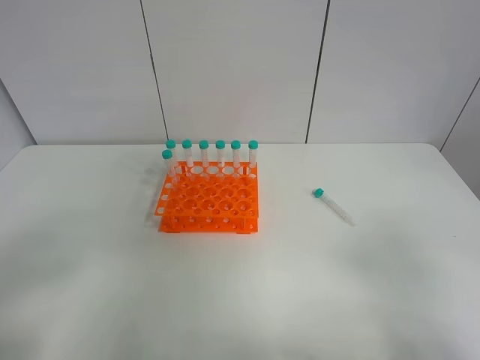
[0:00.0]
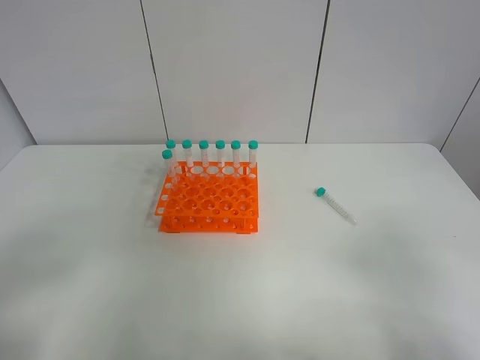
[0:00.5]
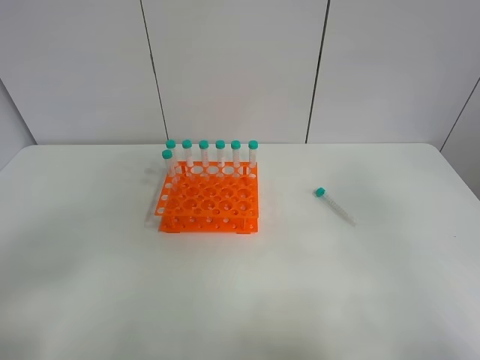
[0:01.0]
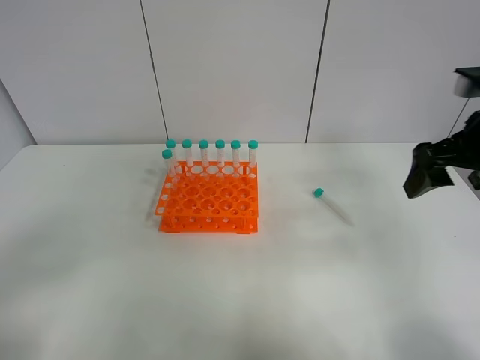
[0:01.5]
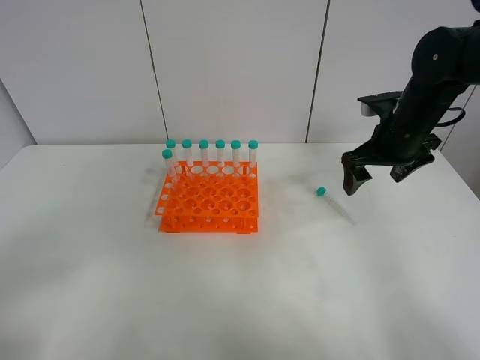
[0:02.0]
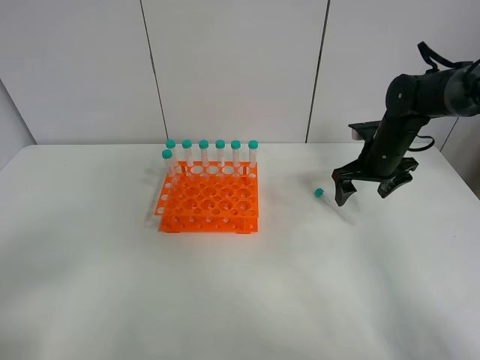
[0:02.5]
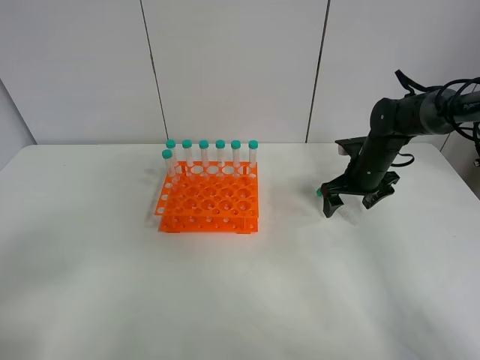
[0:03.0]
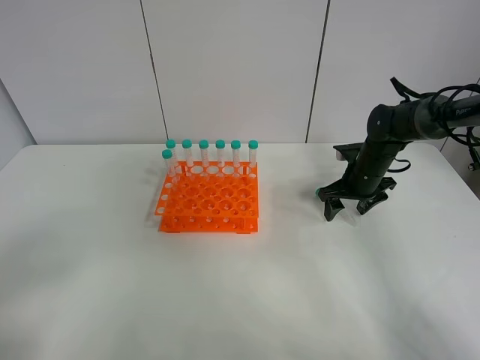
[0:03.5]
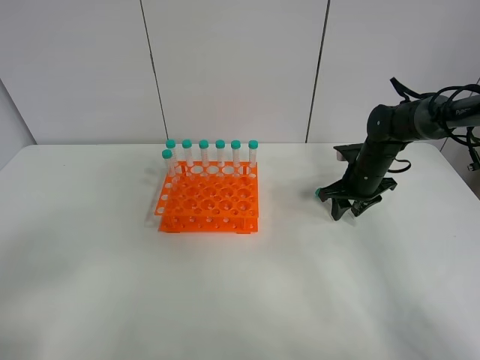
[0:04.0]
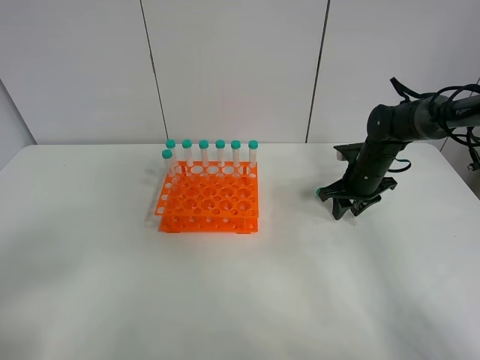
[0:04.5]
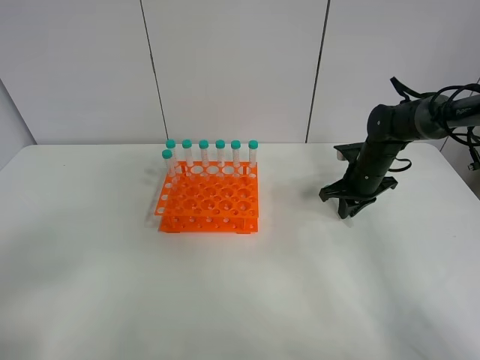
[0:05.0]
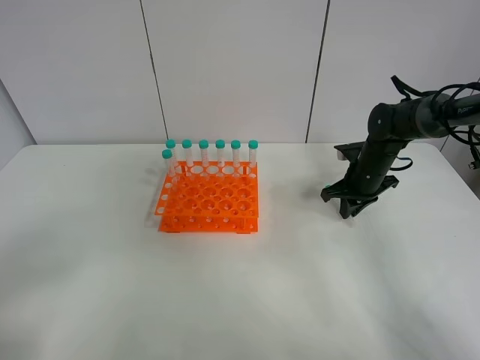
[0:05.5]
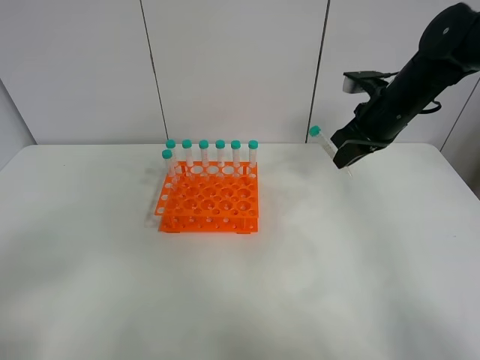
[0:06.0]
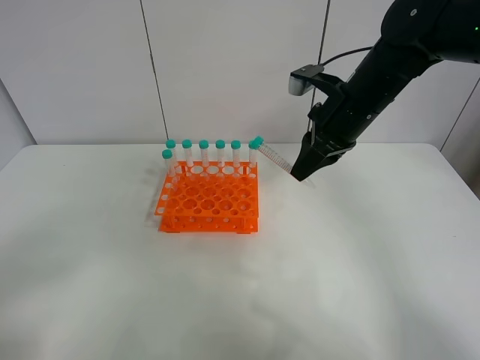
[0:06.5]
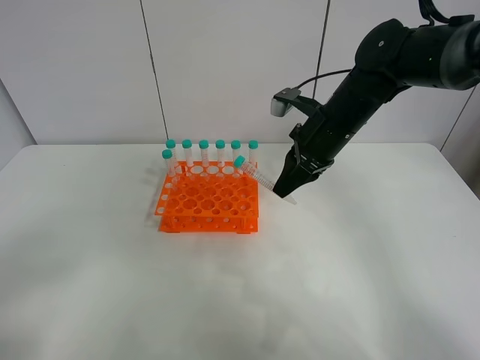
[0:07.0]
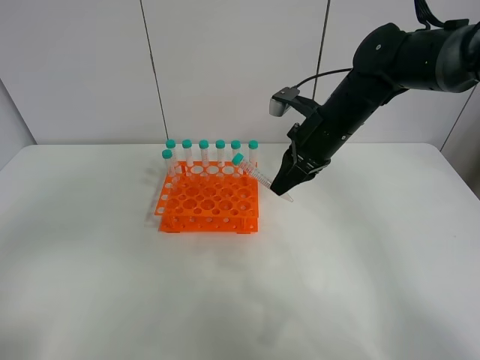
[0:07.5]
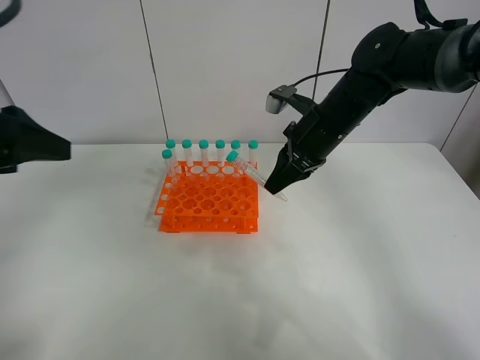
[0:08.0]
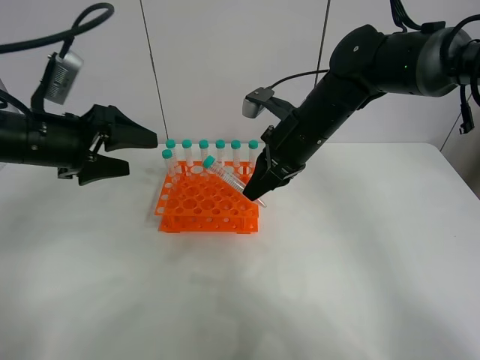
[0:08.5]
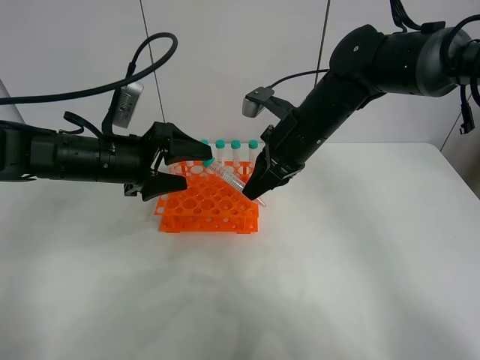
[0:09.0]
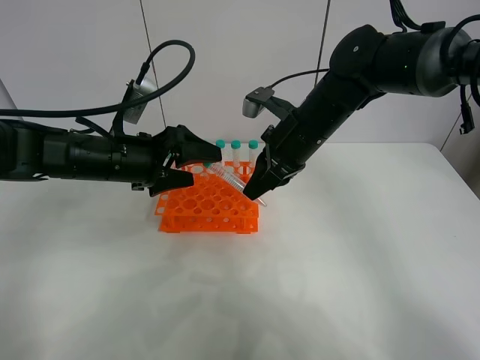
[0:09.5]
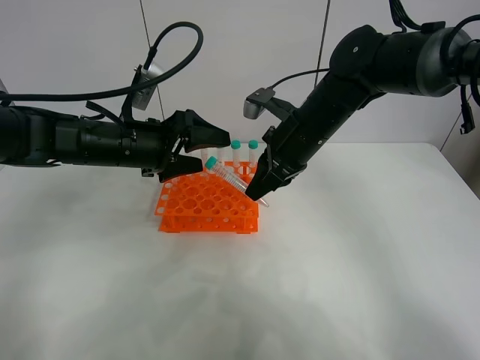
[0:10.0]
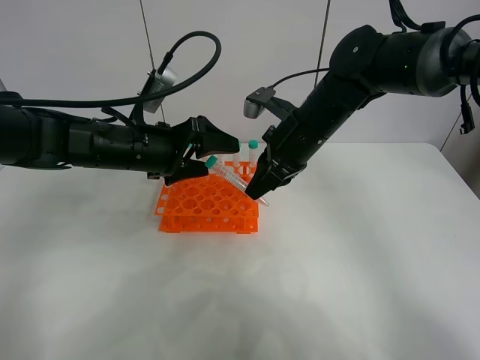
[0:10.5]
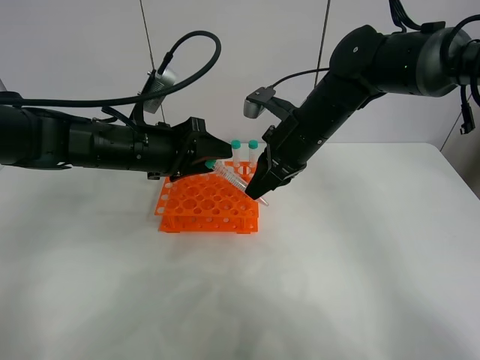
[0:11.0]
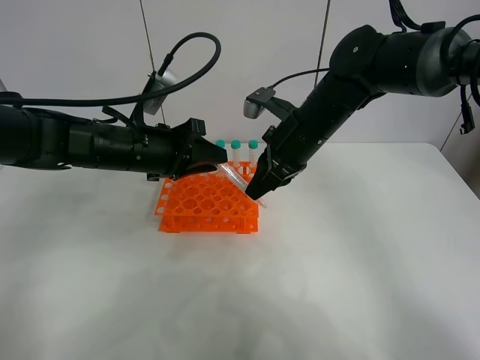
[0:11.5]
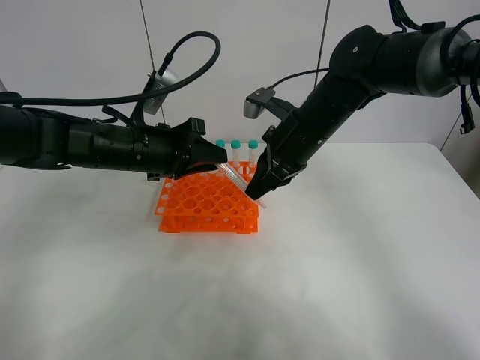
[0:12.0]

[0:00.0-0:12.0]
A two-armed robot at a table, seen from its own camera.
Task of the whole recording: Put the test tube on the table back onto the test tube rack.
Step, 0:00.0 to 0:06.0: Pick up the test tube with the right gripper.
0:00.0 to 0:02.0: The right gripper goes approximately 35 cm forward.
0:02.0 to 0:04.0: The right gripper goes roughly 15 cm downward and forward, and closes.
0:04.0 to 0:06.0: The right gripper moves upward, approximately 15 cm, and closes its fingers.
0:06.0 to 0:08.0: The right gripper shifts roughly 10 cm to the left, while the left gripper heads forward, covering approximately 20 cm.
0:08.0 to 0:10.0: The left gripper heads forward, to the right and downward, covering roughly 20 cm.
0:10.0 to 0:12.0: The left gripper closes.

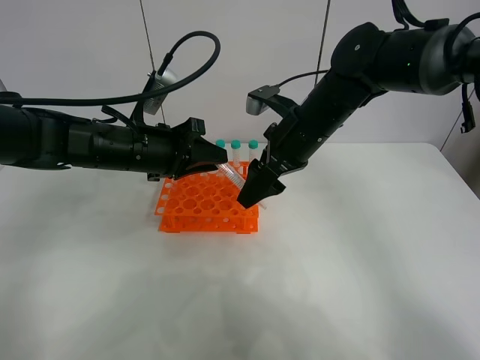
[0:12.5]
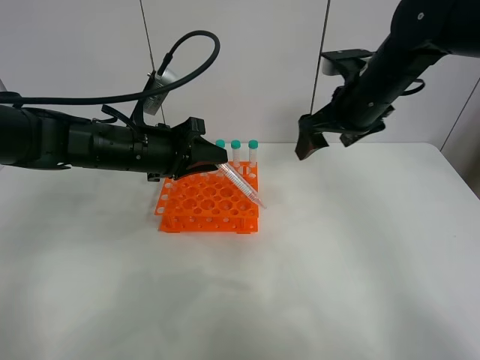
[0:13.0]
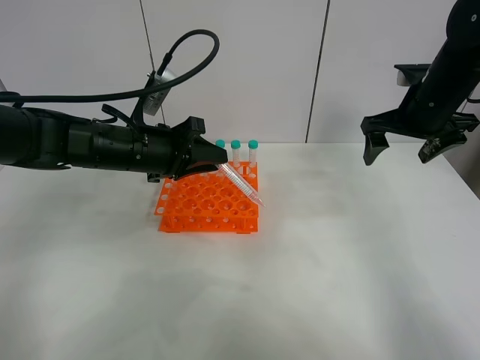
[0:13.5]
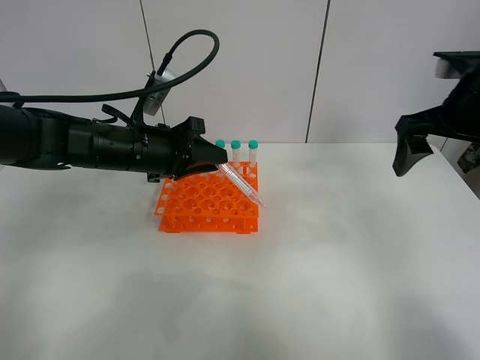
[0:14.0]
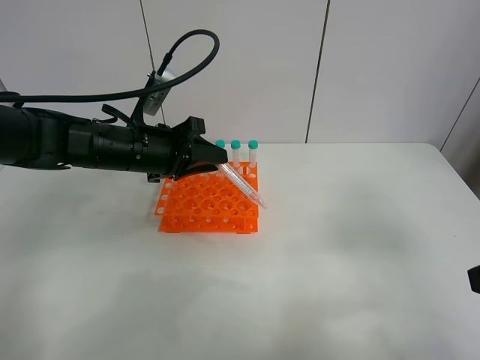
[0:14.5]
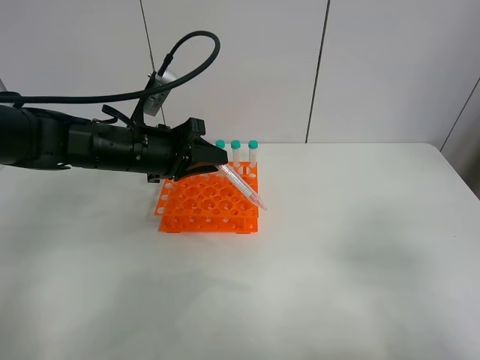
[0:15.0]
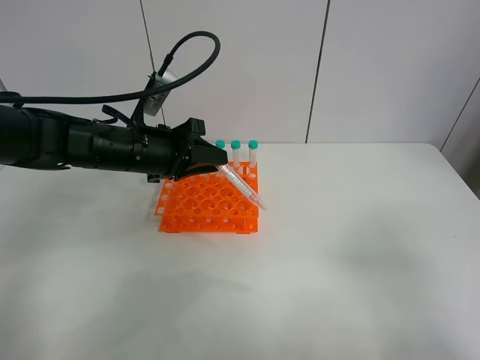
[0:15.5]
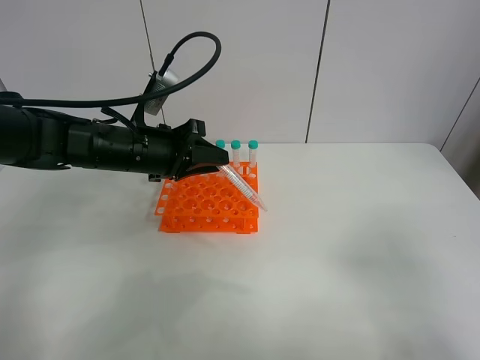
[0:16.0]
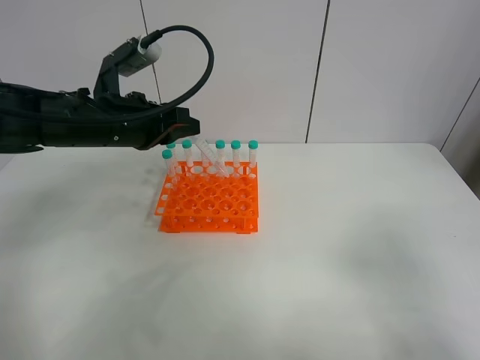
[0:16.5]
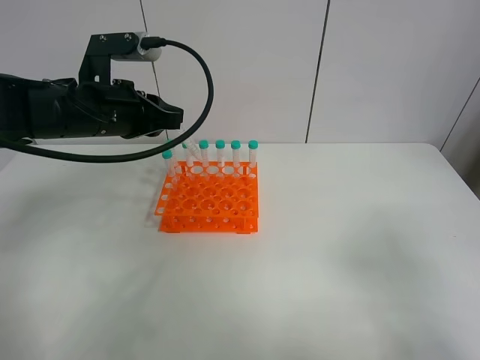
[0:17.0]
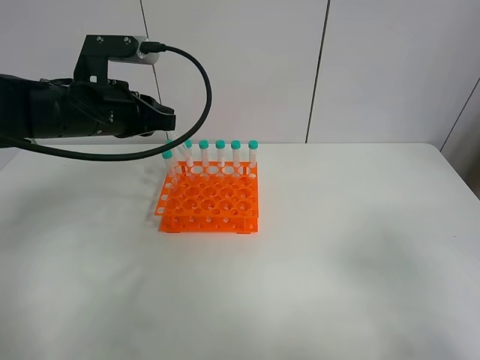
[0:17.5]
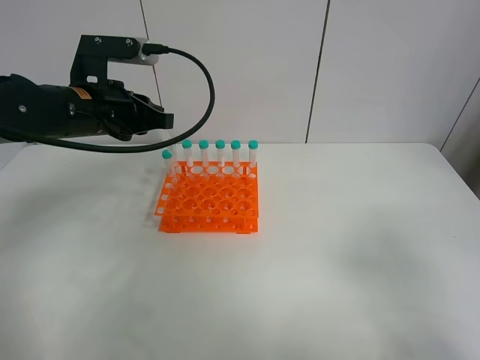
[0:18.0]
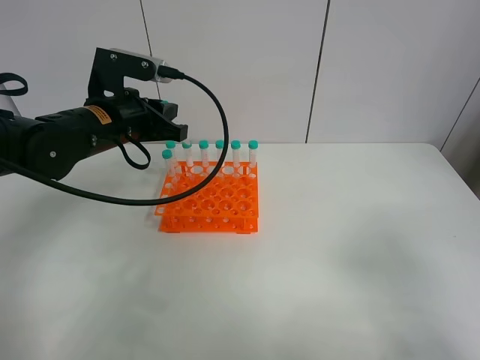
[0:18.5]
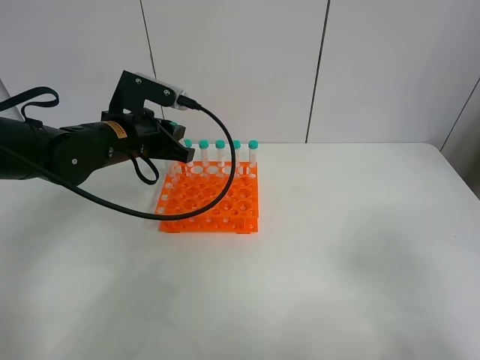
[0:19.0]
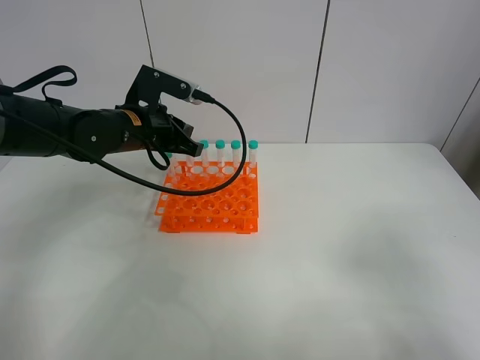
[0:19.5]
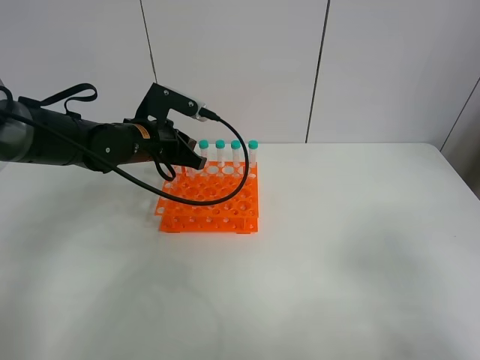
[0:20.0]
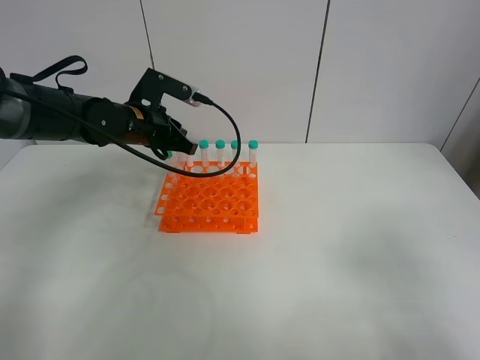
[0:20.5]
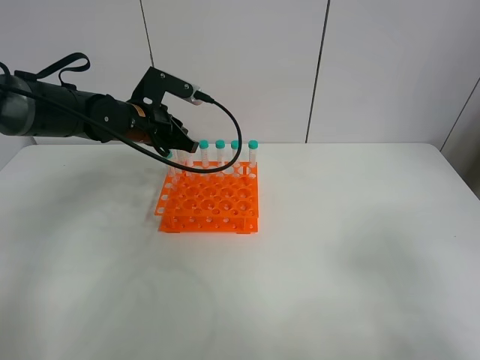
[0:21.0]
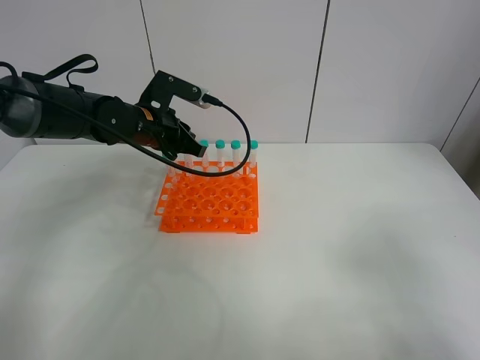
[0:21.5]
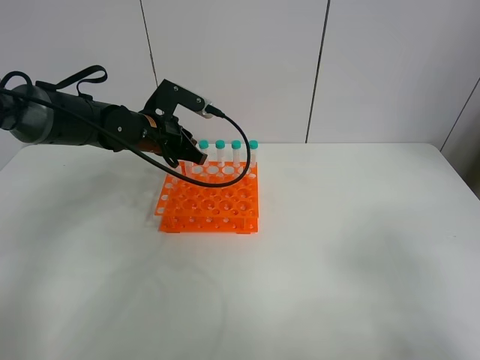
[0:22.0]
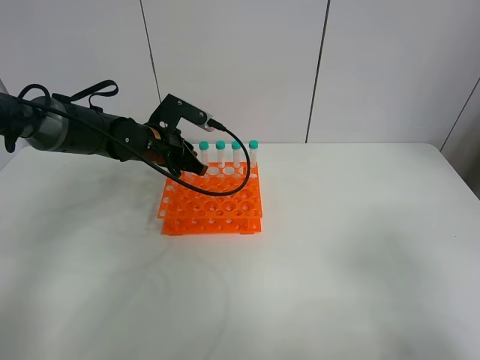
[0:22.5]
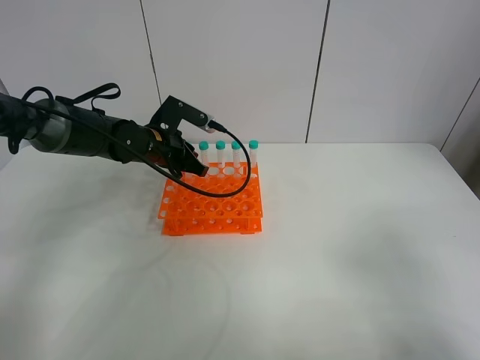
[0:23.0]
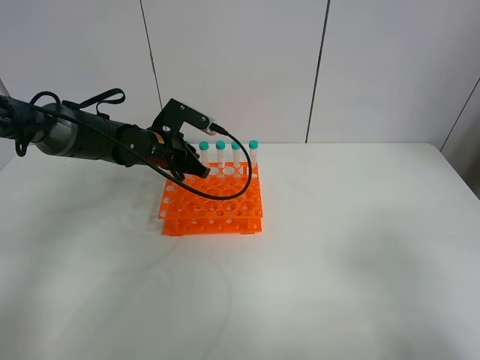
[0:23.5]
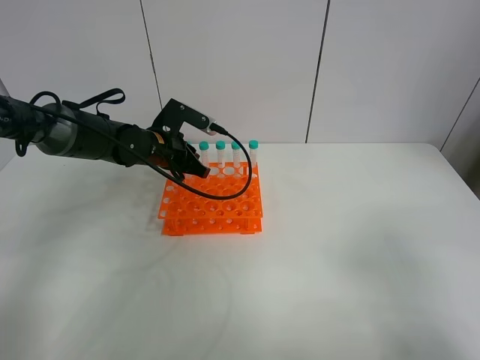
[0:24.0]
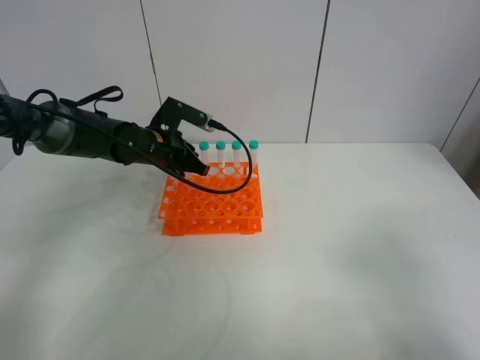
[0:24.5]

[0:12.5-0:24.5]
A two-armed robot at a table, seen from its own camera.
Task of the whole recording: Put the test tube on the table back onto the test tube rack.
0:12.5 to 0:14.5: The right gripper shifts about 30 cm backward and to the right.
0:14.5 to 0:16.5: The right gripper shifts approximately 10 cm backward.
0:18.5 to 0:20.5: The left gripper shifts some 5 cm forward.
0:20.5 to 0:22.5: The grippers stay close to where they were, moving slightly.
0:22.5 to 0:24.5: Both grippers stay put.

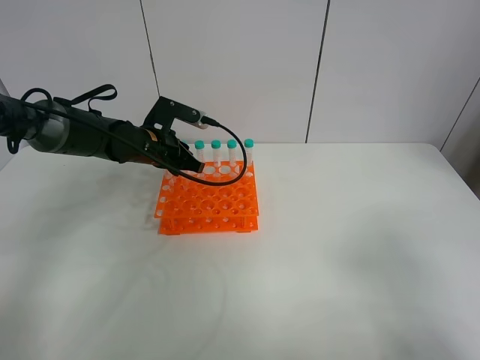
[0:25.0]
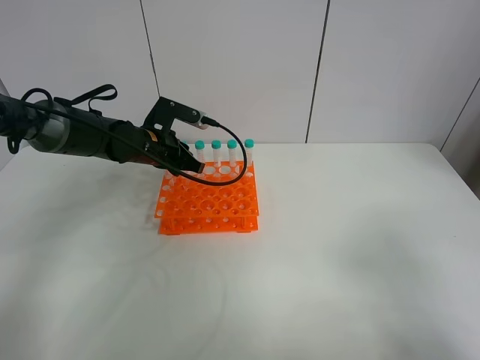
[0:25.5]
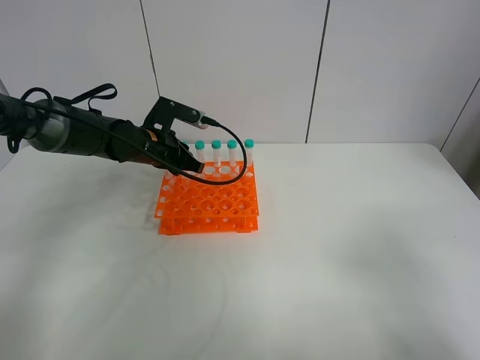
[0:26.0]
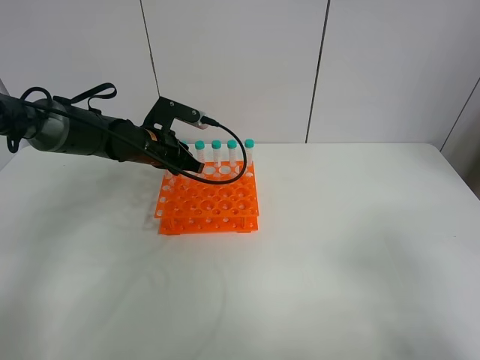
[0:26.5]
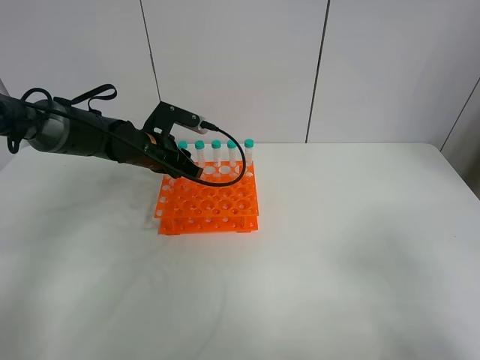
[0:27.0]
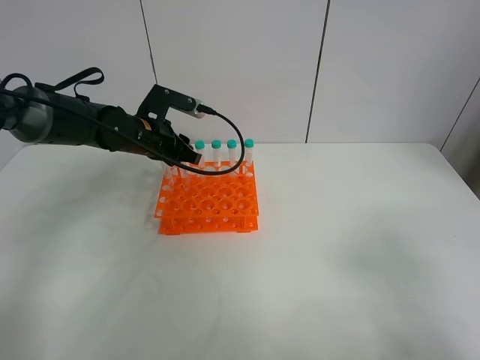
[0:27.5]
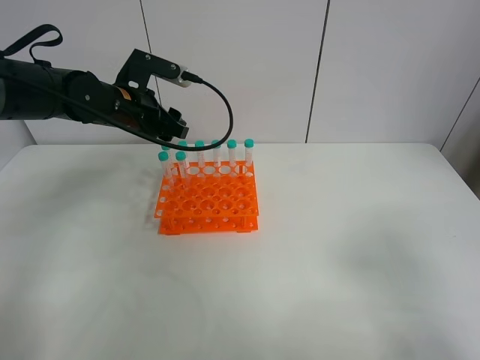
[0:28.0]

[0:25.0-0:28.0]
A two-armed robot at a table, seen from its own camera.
Task of the whole recording: Put the test tube on the table back onto the test tube rack.
0:25.0 to 0:26.5: Both grippers stay put.
0:26.5 to 0:28.0: The left gripper heads upward, covering about 10 cm, and opens up.
